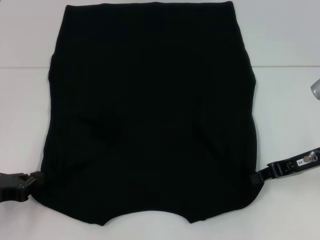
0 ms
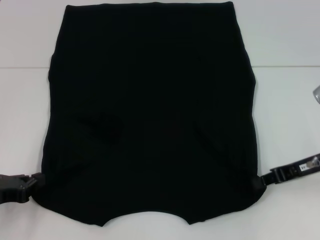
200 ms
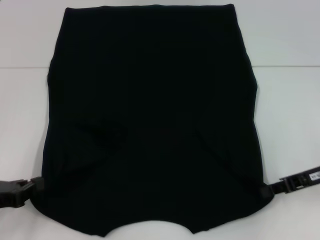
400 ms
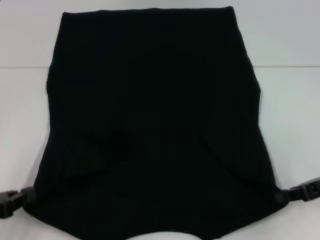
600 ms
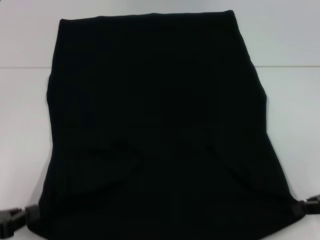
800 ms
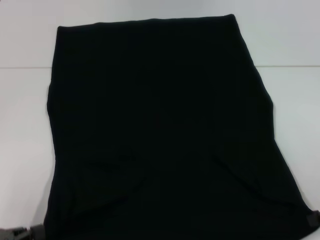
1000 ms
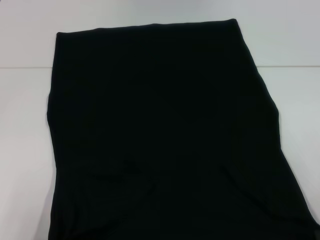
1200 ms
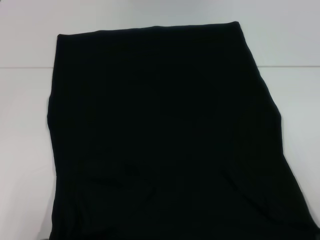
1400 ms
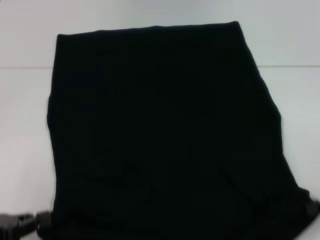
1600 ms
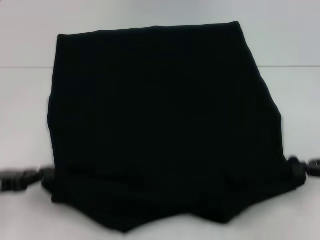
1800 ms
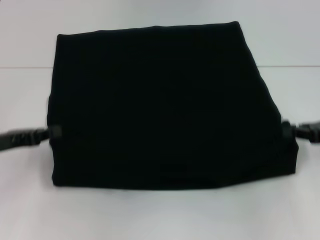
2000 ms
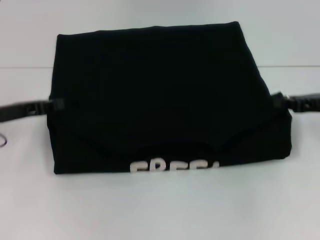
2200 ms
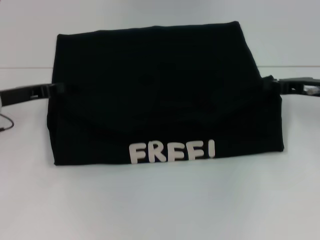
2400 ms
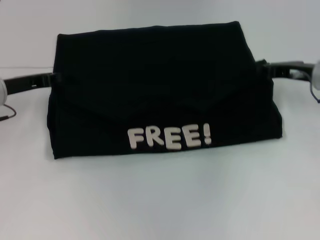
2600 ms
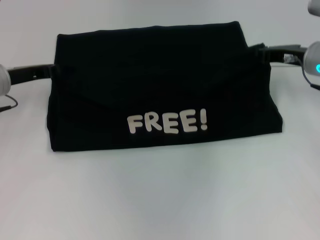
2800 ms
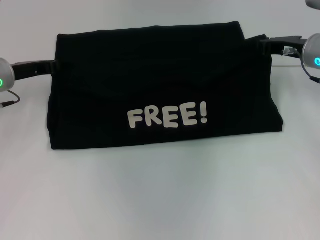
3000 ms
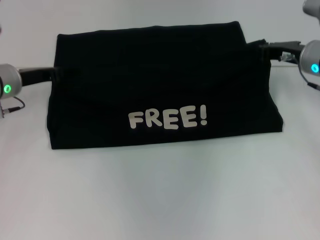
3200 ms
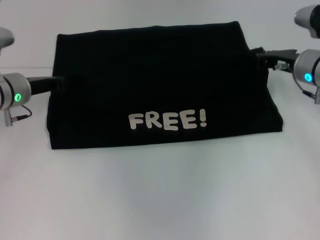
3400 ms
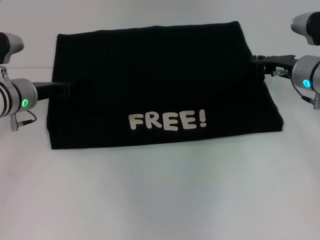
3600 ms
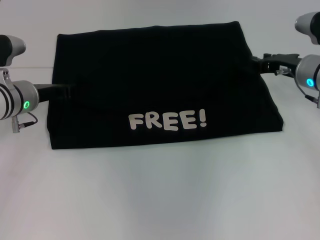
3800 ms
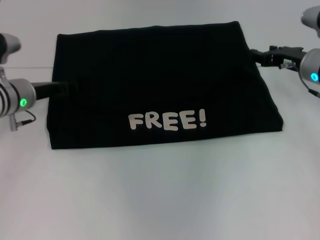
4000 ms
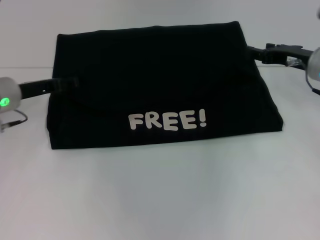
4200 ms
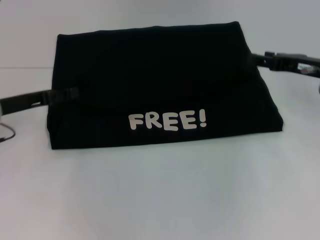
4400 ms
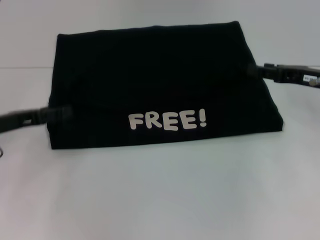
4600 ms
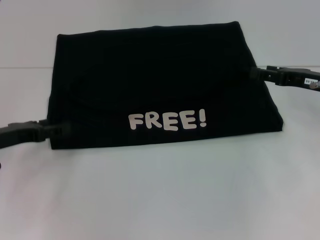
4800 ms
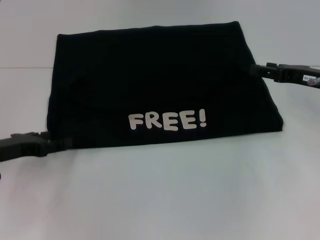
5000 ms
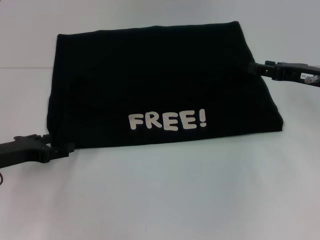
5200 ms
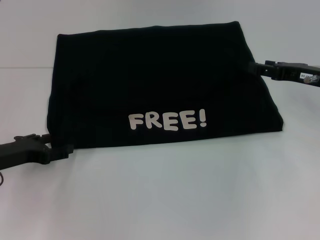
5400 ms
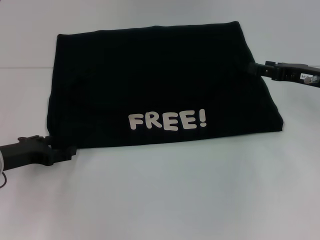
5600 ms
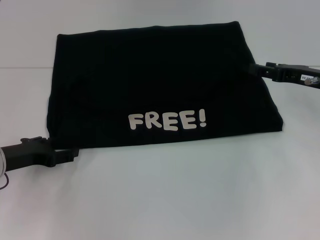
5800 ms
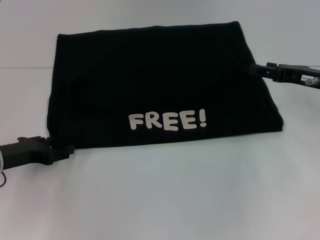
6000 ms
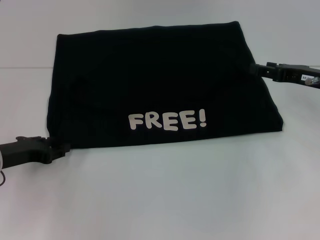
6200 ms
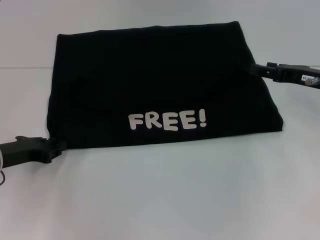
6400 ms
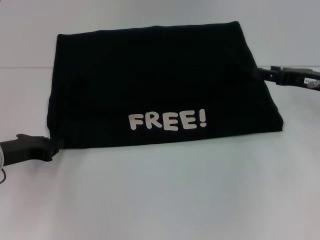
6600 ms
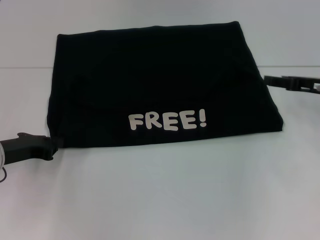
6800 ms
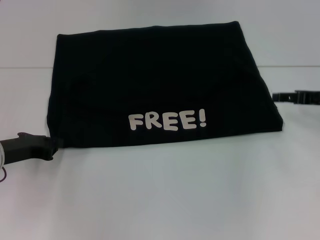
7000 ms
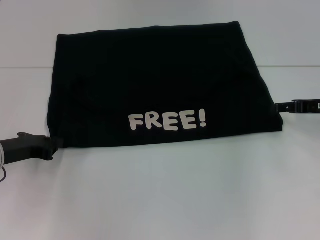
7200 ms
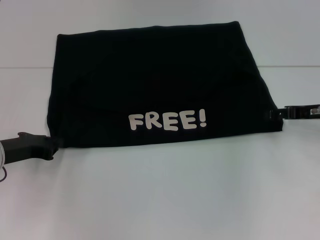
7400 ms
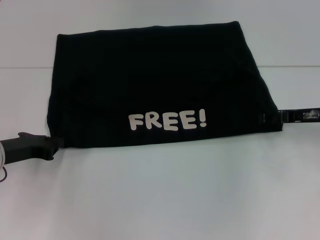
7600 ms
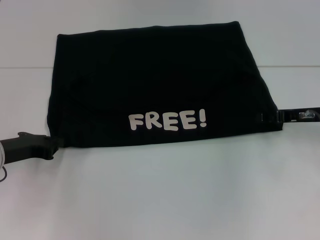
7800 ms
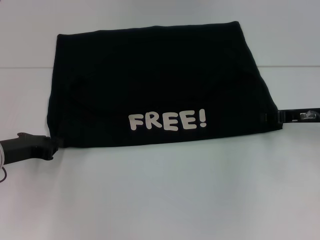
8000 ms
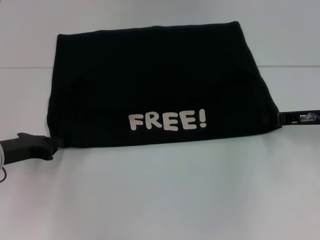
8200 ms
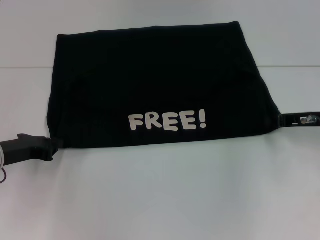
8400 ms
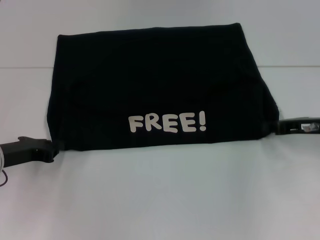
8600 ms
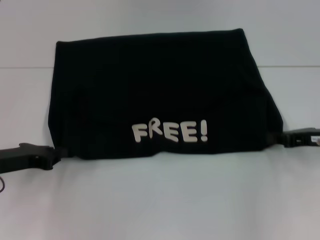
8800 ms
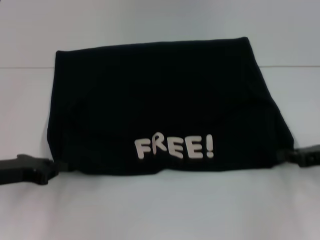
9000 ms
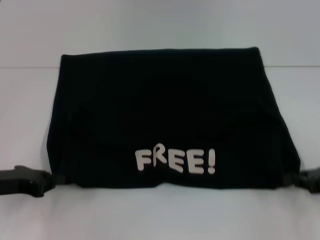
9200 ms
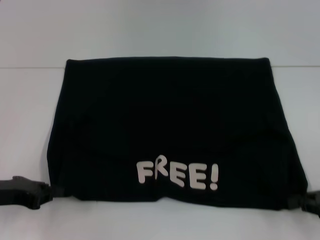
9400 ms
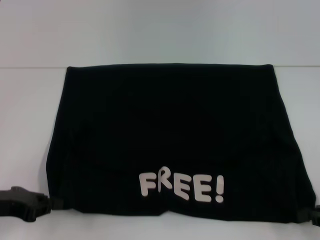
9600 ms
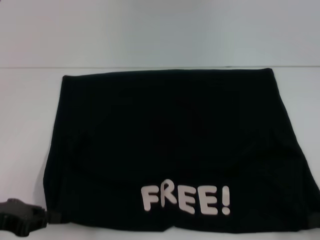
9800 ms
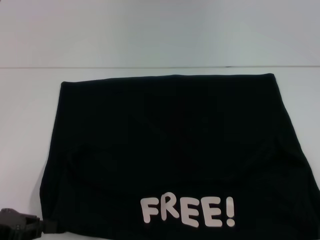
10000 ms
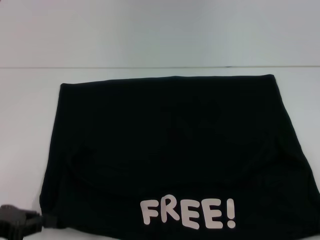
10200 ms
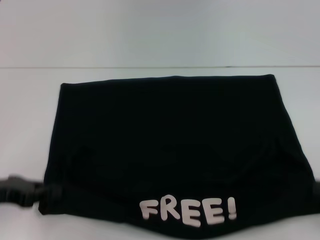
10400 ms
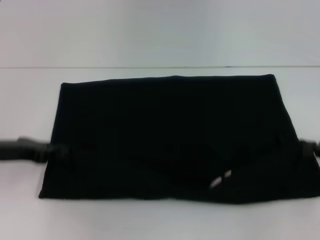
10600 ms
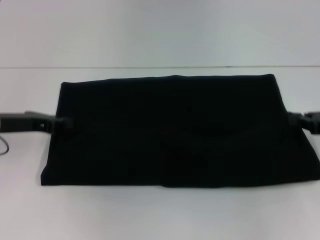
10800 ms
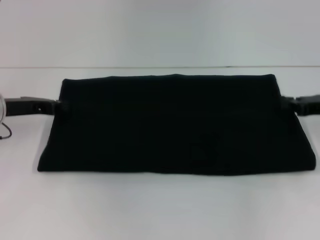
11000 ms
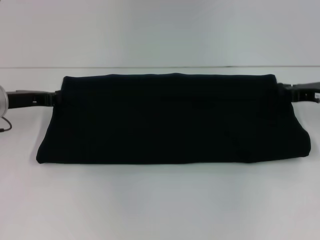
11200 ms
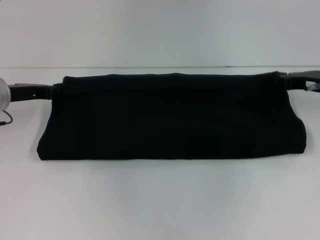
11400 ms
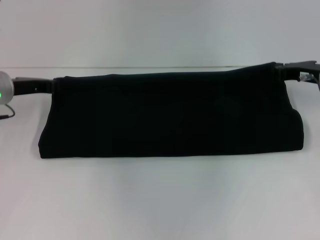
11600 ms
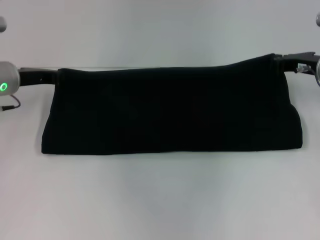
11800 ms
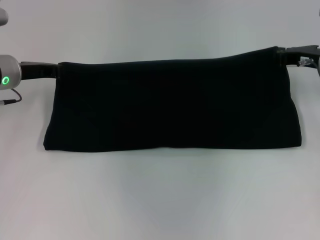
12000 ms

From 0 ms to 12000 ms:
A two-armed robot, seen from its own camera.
Step, from 0 ms to 3800 ms: Fold the clothes with your left hand.
Step, from 0 ms to 3800 ms: Fold the clothes with your right hand.
Step, from 4000 ms to 10000 ms: Pull the clothes with your left hand.
Step, from 4000 ms to 10000 ms: Pull the clothes with your right hand.
From 0 ms to 1600 ms: The right gripper travels to the right and backward by about 15 cm. Meanwhile the left gripper is displaced backward by approximately 5 cm.
From 1600 ms to 3000 ms: The left gripper travels forward by approximately 25 cm; the right gripper moves forward and to the left, some 25 cm.
From 3000 ms to 4400 ms: The left gripper goes about 5 cm backward, and opens up. Meanwhile the right gripper shifts by approximately 5 cm, and opens its fingers.
From 4400 ms to 6000 ms: The left gripper moves downward, about 5 cm.
From 6000 ms to 7600 ms: The left gripper closes.
From 7600 ms to 9000 ms: The right gripper heads backward, covering about 5 cm, and closes up.
From 9000 ms to 10400 ms: The right gripper goes about 10 cm backward and to the right.
From 10400 ms to 12000 ms: The left gripper is displaced forward by roughly 20 cm. Meanwhile the right gripper heads forward and to the left, covering some 25 cm.

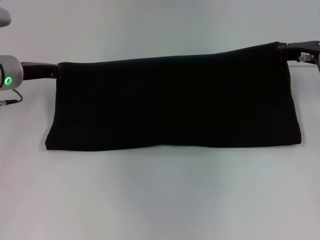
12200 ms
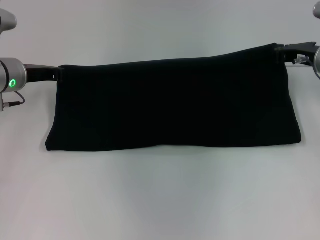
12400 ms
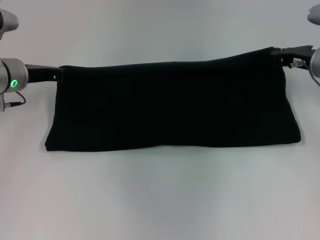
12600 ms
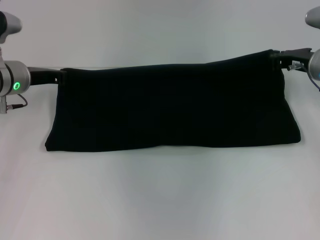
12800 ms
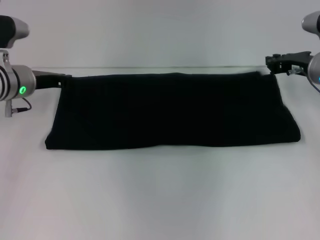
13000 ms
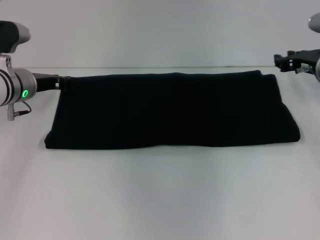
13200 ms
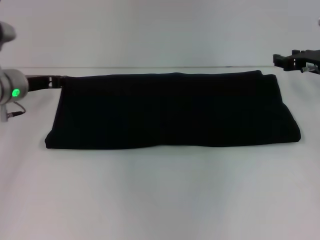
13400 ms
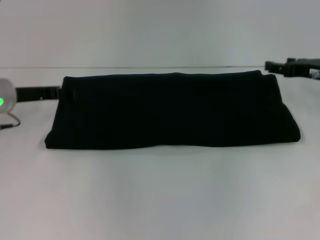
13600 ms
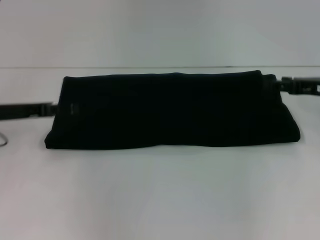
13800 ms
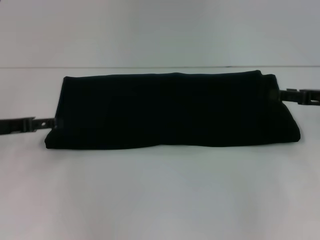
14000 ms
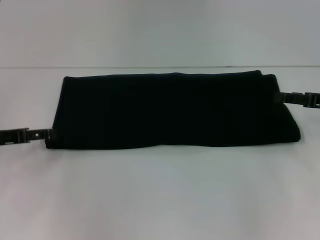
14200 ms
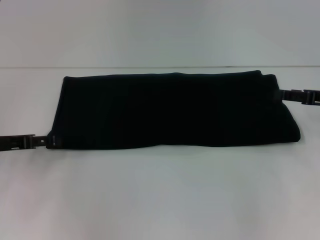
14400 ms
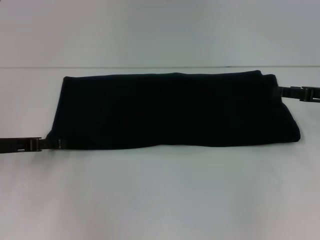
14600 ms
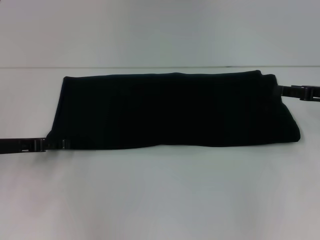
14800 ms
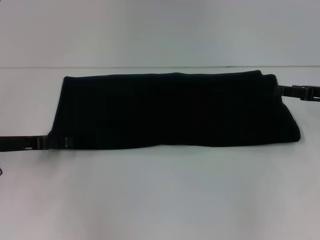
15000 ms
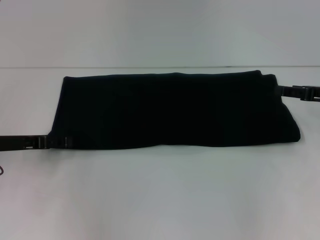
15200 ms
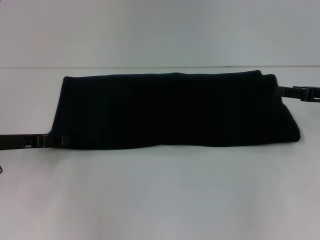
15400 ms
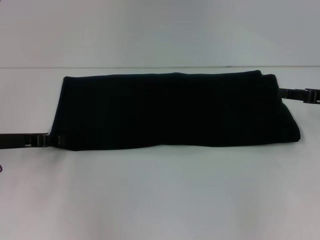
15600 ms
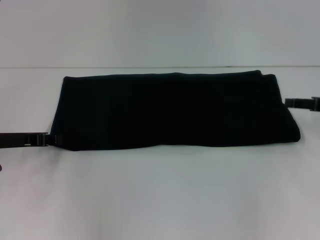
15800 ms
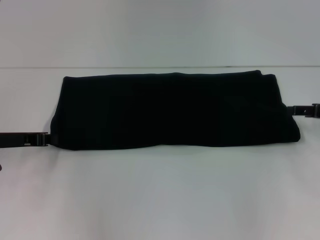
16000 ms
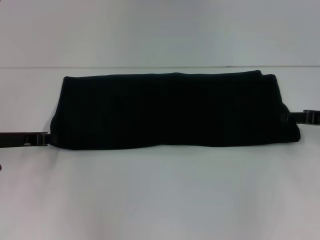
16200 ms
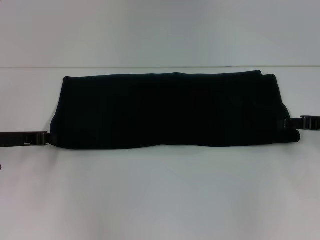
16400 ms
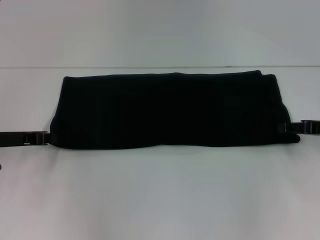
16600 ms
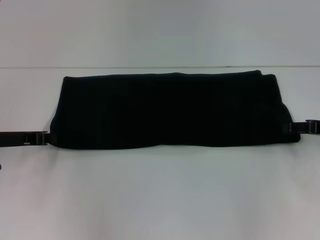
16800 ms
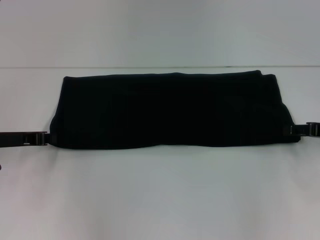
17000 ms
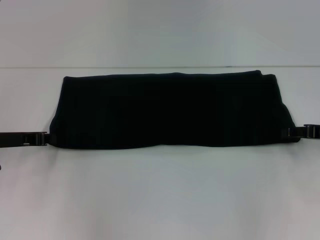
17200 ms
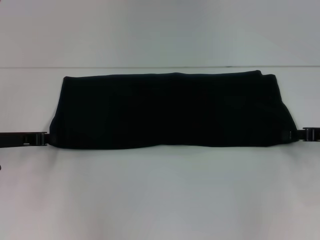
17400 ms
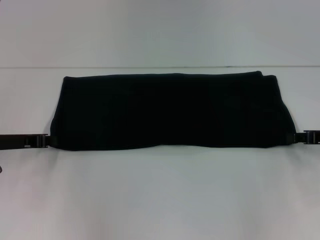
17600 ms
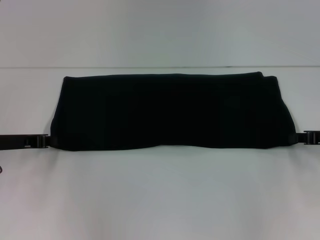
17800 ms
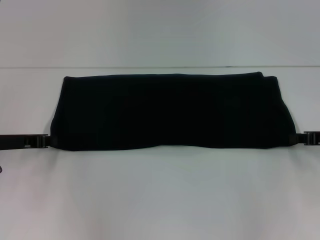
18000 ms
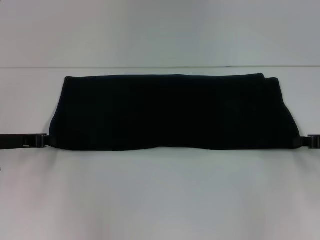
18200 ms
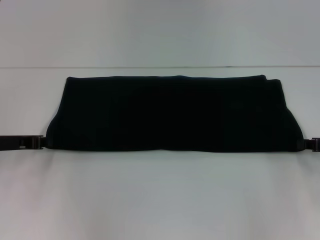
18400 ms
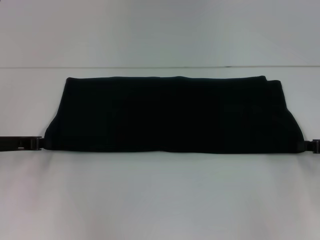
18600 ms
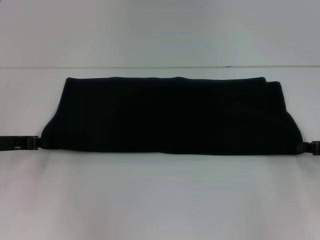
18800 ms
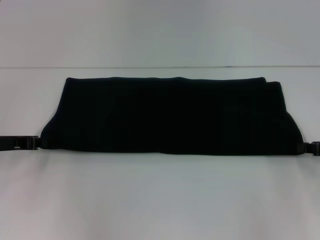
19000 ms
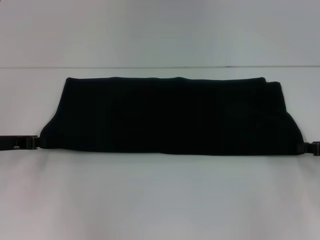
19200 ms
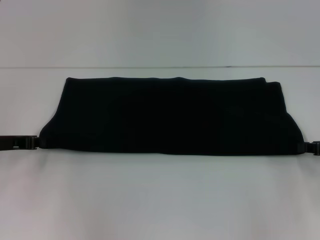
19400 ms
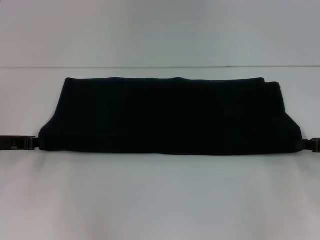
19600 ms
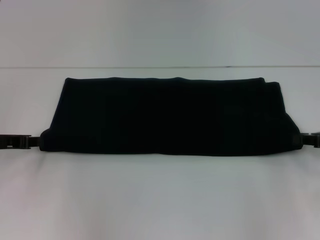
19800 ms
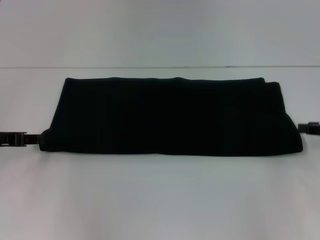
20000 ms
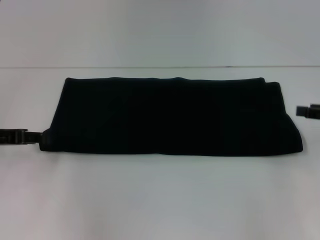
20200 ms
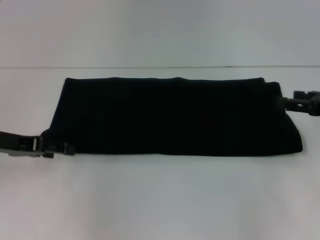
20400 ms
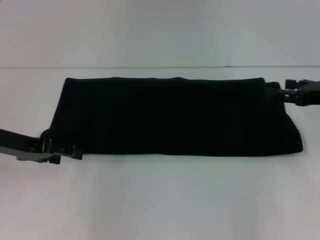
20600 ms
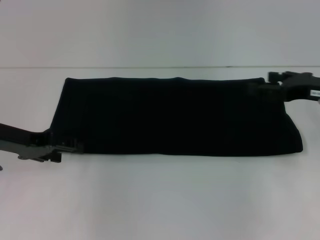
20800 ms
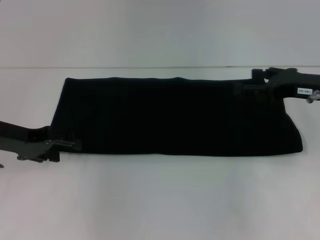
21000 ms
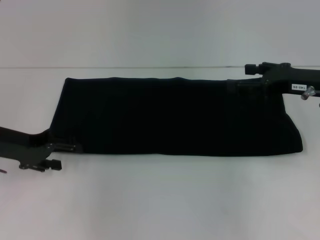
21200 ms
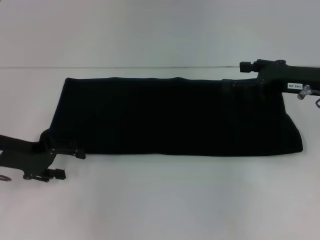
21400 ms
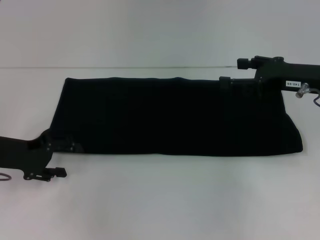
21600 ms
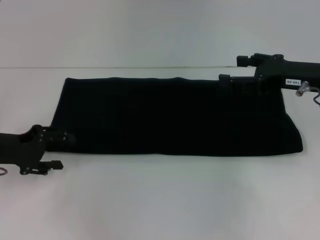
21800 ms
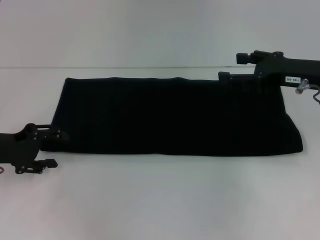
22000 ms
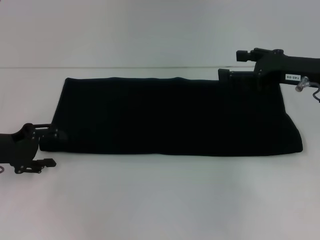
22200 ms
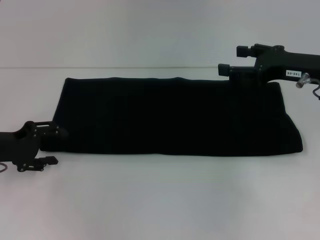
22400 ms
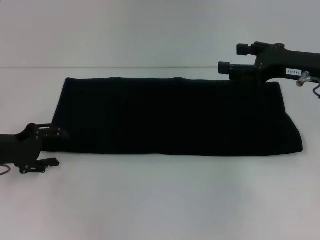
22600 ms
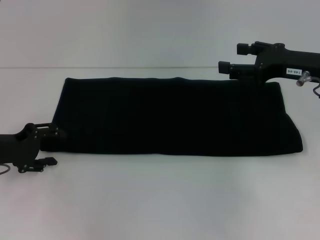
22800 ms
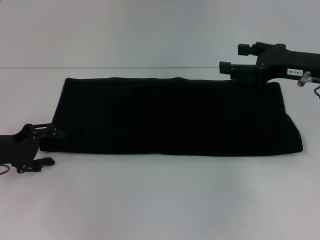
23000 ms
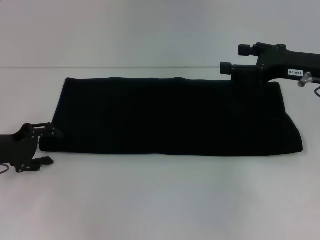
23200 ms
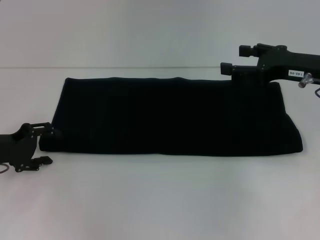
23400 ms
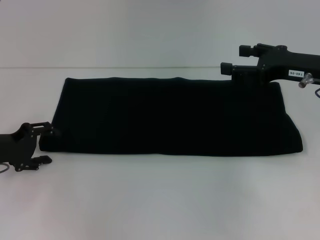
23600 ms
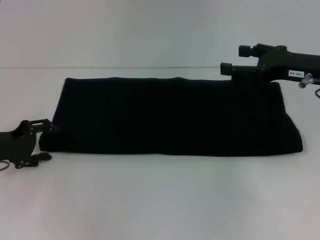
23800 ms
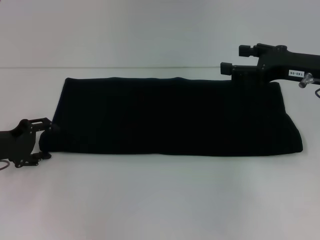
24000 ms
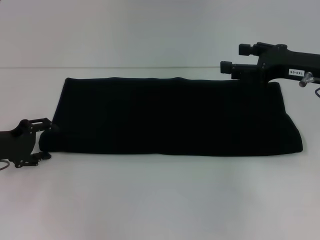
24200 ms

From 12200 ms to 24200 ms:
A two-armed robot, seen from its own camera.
From 12200 ms to 13800 ms: Both grippers travel together backward, about 5 cm. The left gripper opens its fingers. Meanwhile the right gripper opens up.
From 13800 ms to 15200 ms: The grippers stay close to where they were, moving slightly.
From 15200 ms to 16600 ms: The left gripper closes.
From 16600 ms to 18200 ms: The right gripper closes.
From 18200 ms to 19800 ms: There are only small adjustments of the grippers.
From 19800 ms to 21200 ms: The right gripper travels to the left and upward by approximately 10 cm, and opens its fingers. Meanwhile the left gripper opens its fingers.
From 22600 ms to 24200 ms: The grippers move only a little.
